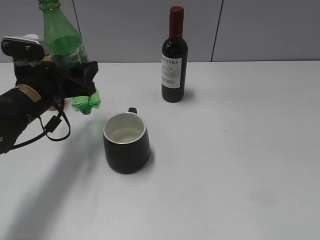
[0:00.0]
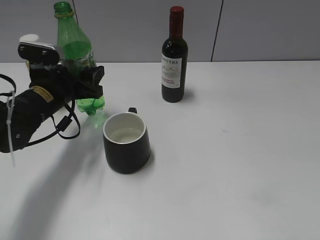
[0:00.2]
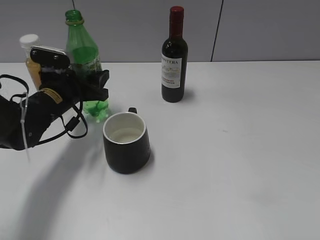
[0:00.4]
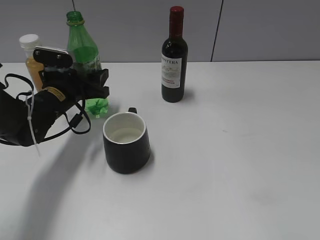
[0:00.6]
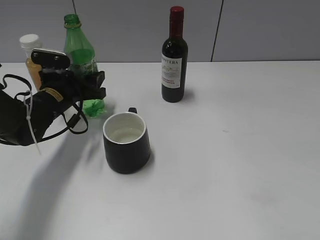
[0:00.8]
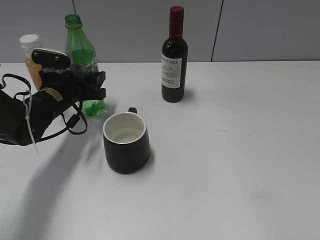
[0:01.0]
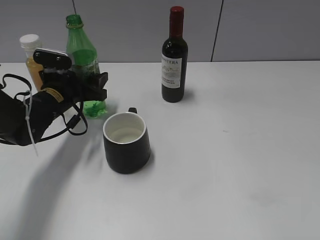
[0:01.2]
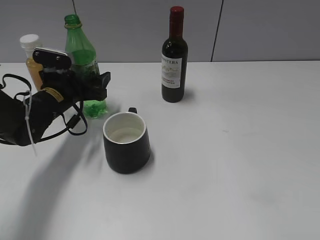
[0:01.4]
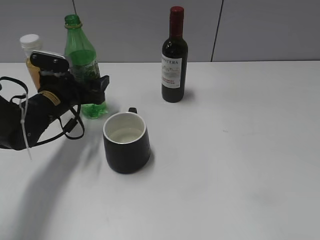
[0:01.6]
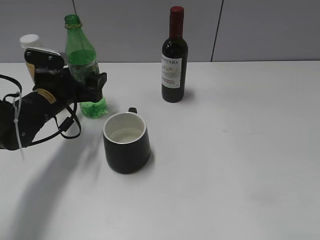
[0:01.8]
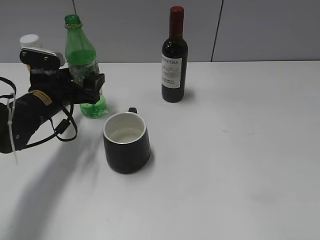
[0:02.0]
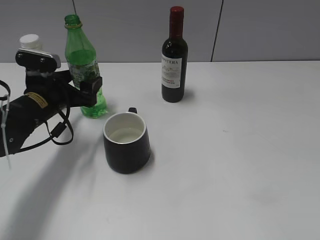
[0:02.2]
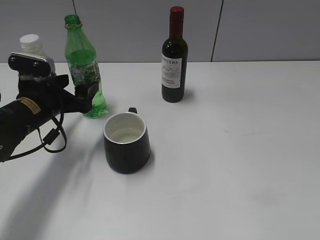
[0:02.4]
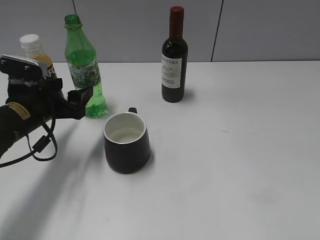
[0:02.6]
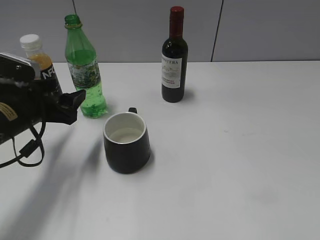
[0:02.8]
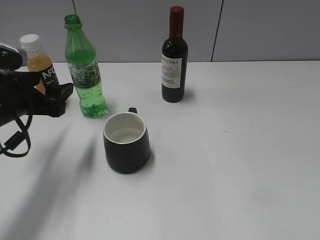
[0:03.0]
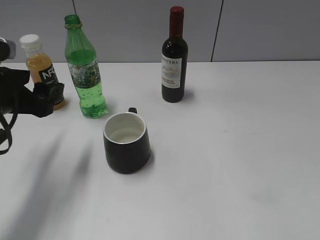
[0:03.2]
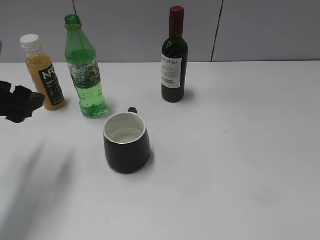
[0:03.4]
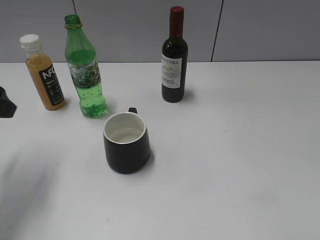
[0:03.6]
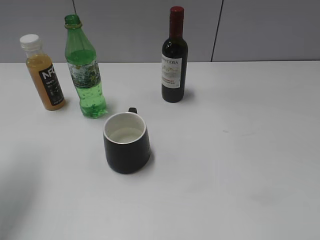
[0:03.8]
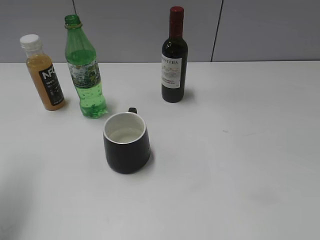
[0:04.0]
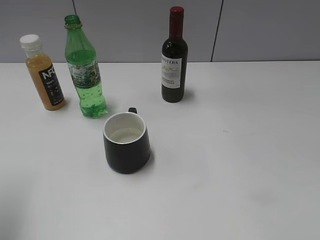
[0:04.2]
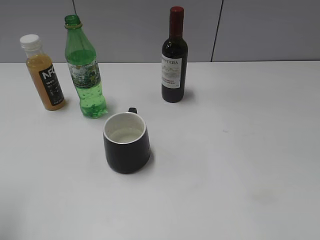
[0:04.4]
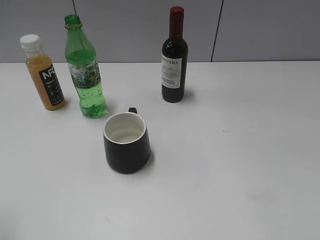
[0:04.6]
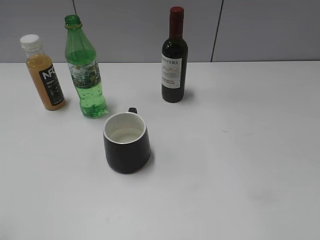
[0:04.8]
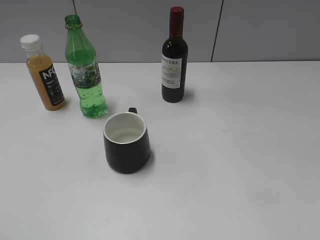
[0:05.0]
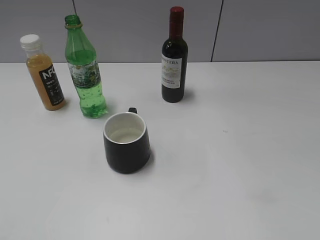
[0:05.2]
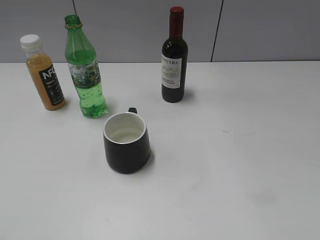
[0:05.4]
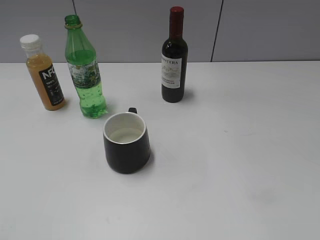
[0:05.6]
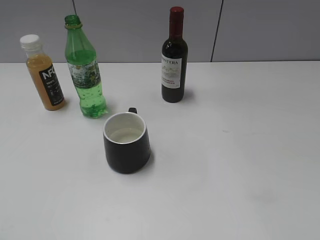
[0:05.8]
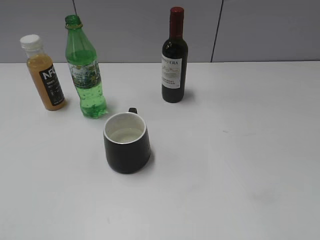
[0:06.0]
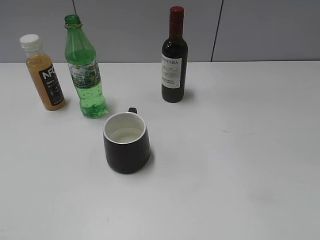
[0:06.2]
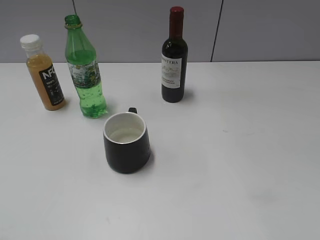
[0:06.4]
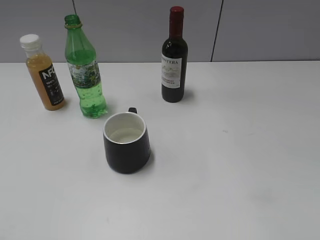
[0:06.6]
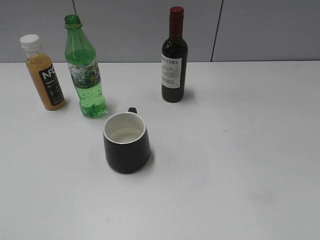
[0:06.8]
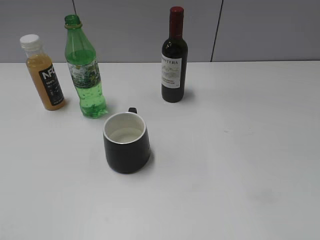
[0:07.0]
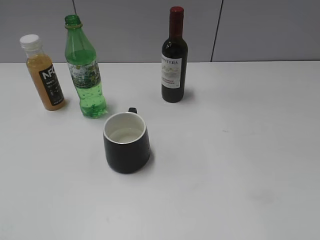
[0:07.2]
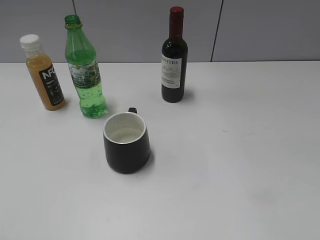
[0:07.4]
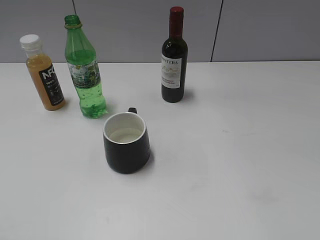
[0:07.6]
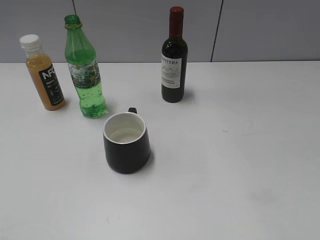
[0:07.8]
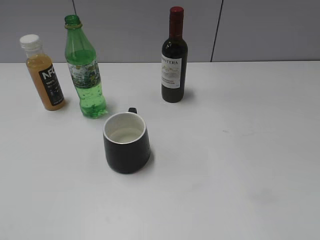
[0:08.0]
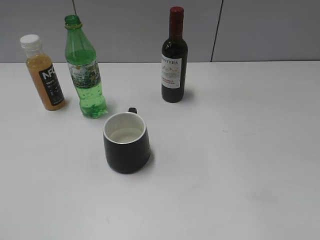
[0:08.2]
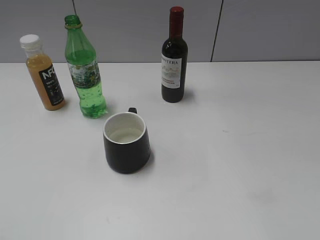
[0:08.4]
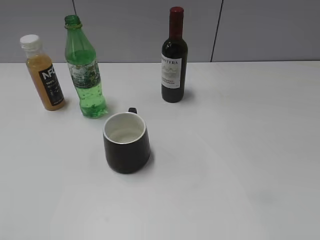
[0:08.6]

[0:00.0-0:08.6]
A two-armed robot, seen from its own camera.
Step, 0:00.0 to 0:02.2: Place the sprite bottle on the table with left gripper.
0:00.0 to 0:01.4: The left gripper goes some 10 cm forward and downward, and opens its fingers.
0:01.4 to 0:02.8: The left gripper goes roughly 10 cm backward.
0:02.8 to 0:04.4: The left gripper is displaced upward, backward and to the left by some 20 cm.
0:07.2 to 0:08.6: Both grippers stay put.

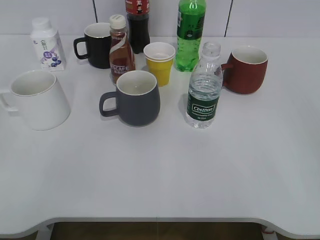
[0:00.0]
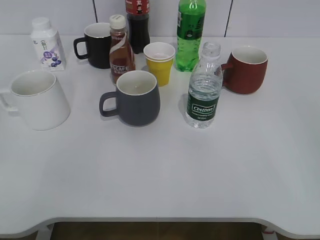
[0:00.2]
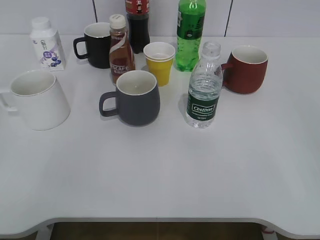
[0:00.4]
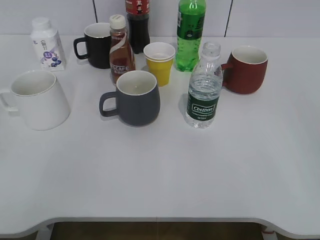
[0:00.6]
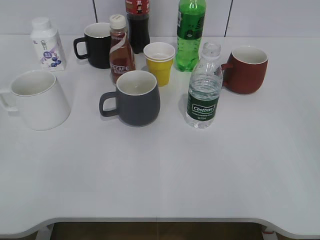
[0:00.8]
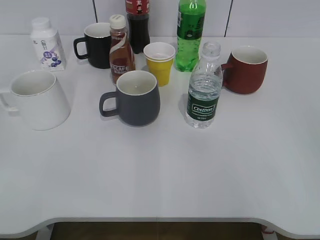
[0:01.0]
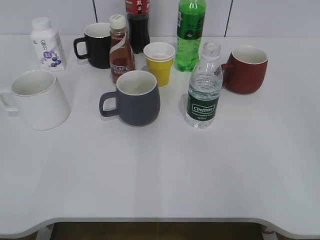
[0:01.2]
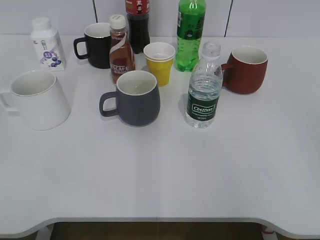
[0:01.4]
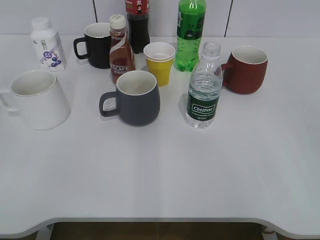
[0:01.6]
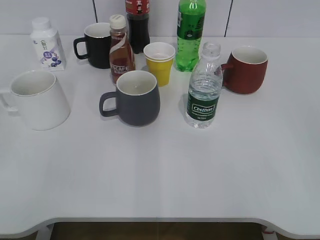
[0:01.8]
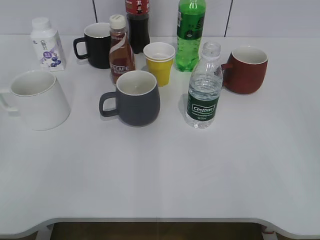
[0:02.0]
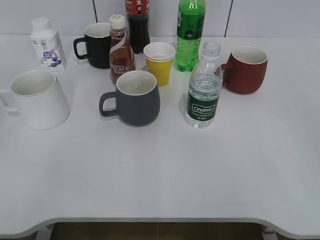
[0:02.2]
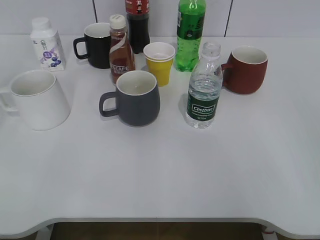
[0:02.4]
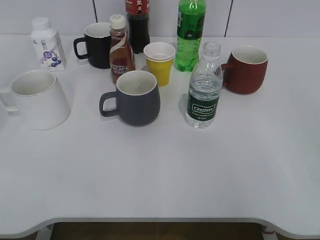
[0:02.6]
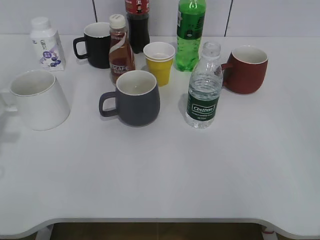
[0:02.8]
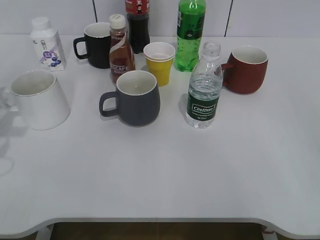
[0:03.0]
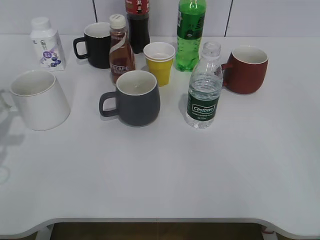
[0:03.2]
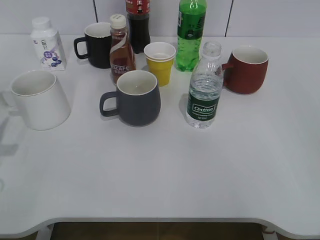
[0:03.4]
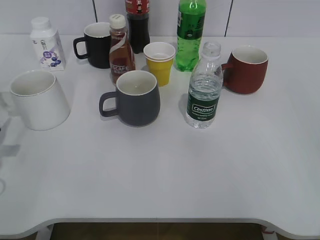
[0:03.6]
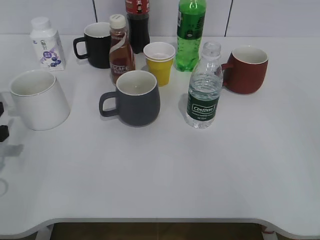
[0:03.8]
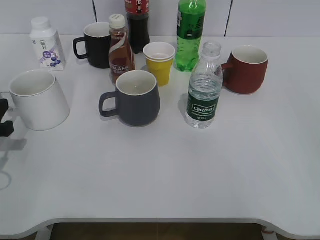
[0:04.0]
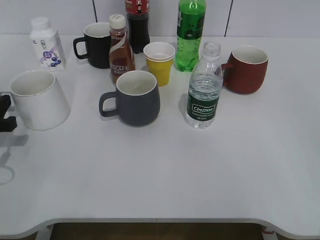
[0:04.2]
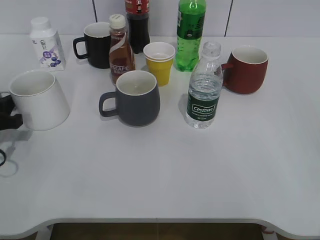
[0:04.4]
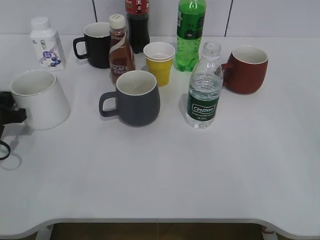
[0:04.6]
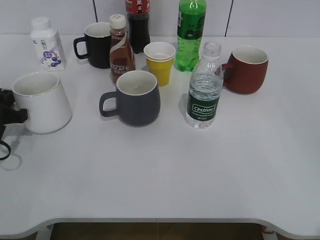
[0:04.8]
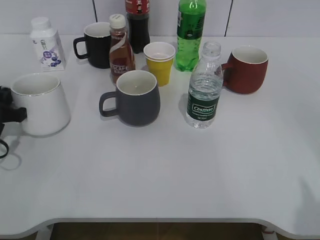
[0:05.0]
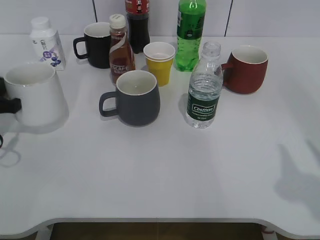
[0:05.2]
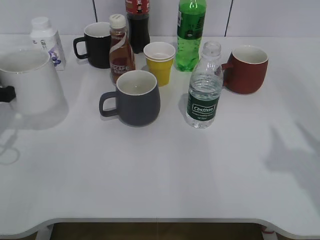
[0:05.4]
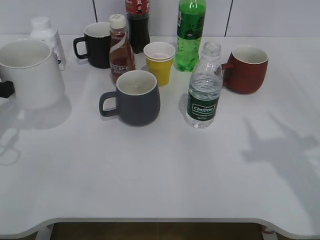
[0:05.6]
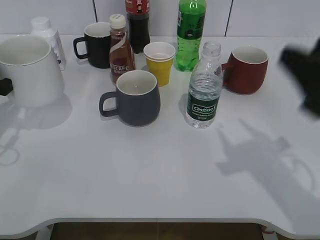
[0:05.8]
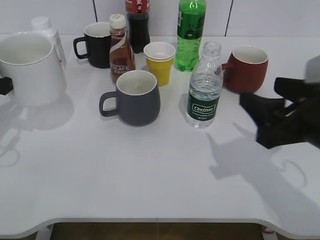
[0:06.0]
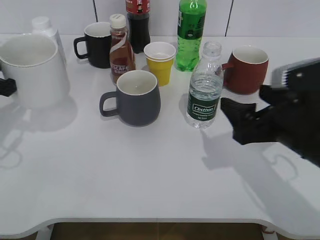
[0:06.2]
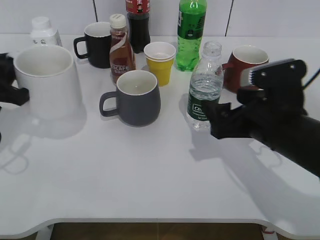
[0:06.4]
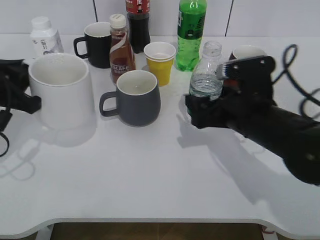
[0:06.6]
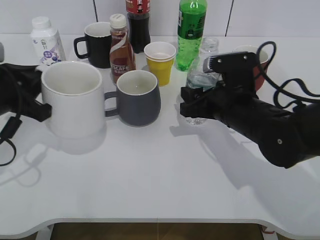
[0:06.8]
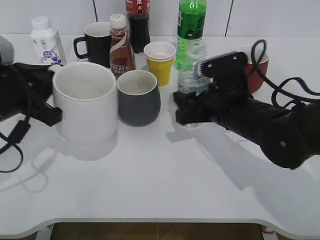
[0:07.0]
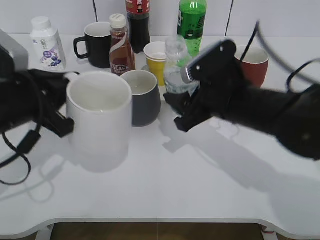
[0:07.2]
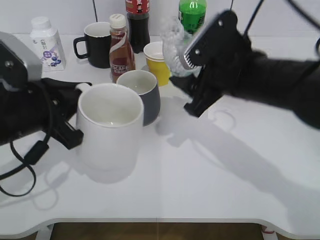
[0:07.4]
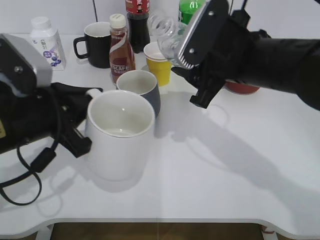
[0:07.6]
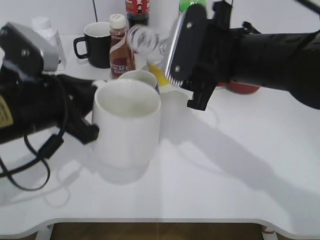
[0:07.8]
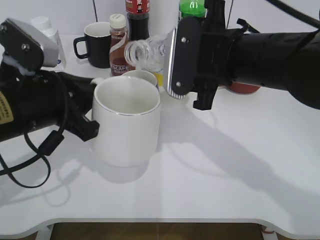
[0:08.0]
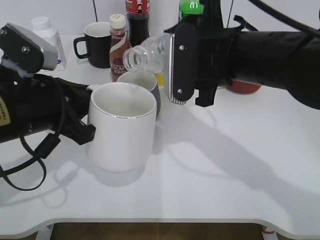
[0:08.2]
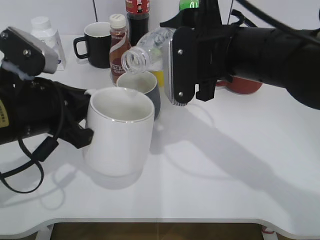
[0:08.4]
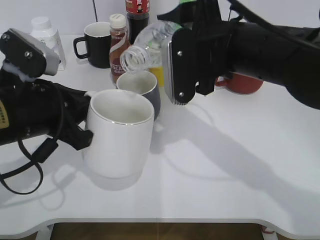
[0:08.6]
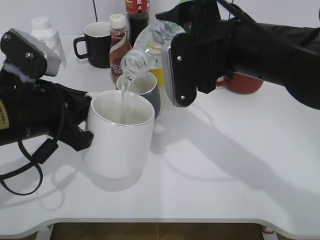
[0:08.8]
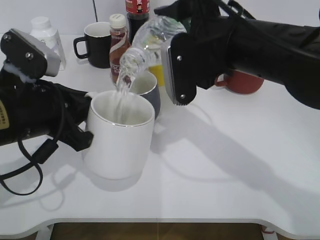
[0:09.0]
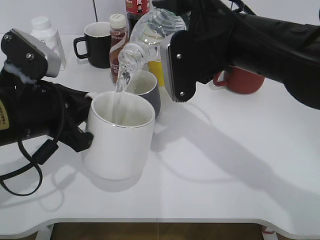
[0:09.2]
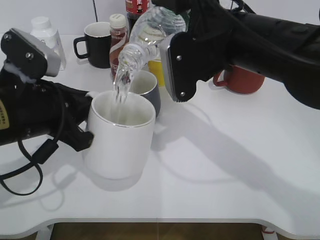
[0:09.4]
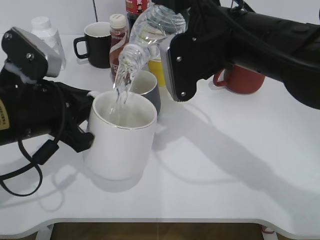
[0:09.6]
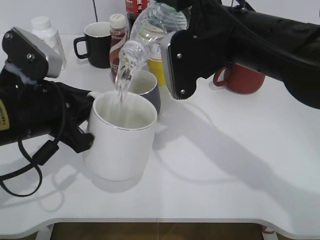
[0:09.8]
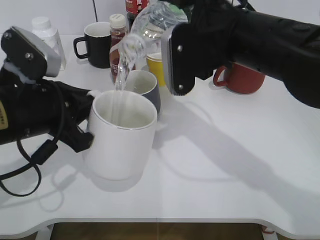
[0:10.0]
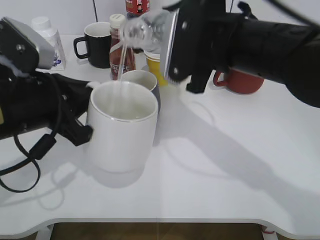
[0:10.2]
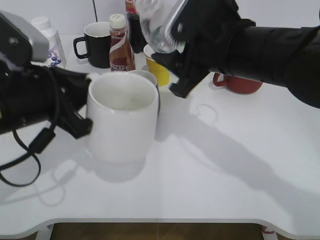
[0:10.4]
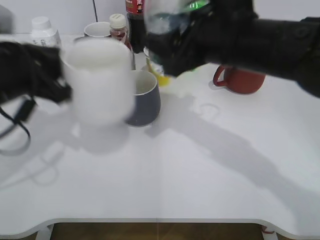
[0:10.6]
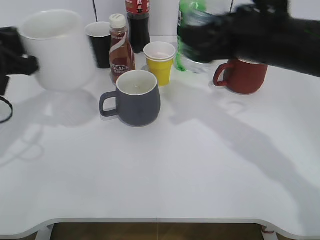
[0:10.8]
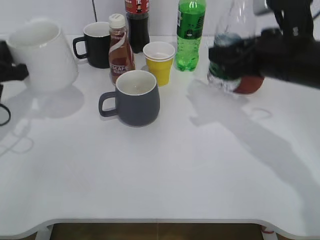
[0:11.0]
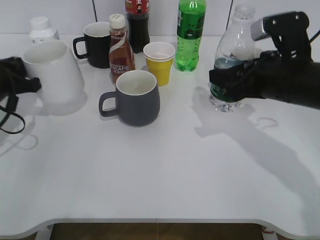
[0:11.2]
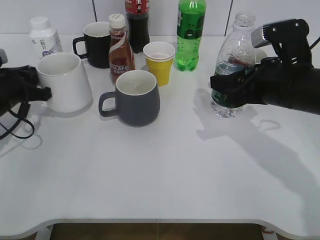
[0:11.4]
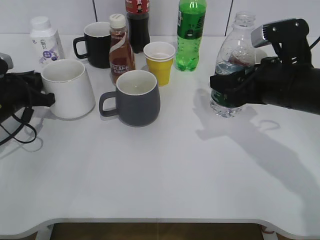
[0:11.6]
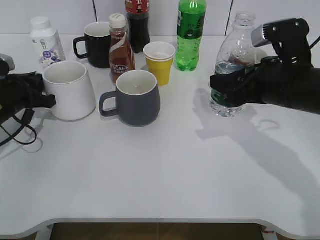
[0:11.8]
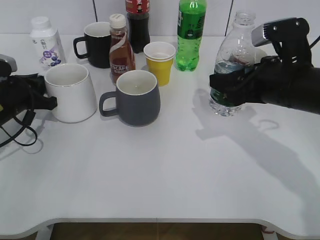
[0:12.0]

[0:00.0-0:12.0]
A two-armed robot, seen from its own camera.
Step, 0:04.8 to 0:06.6: Grasp the bottle with water with right gripper.
Step, 0:06.8 to 0:10.2: Pour the water from bottle to cup with right gripper.
Step, 0:10.4 to 0:10.8: Place the white cup on the table with left gripper.
0:01.6 to 0:03.0: The left gripper goes some 20 cm forward.
0:03.0 to 0:04.4: The left gripper heads downward, covering roughly 10 cm.
0:04.4 to 0:06.0: The right gripper goes some 20 cm forward and to the left; the left gripper travels upward by some 10 cm, and closes its fingers.
0:06.0 to 0:07.6: The right gripper travels forward and to the left by approximately 15 cm, and opens and closes again. Meanwhile the left gripper goes approximately 15 cm to the right and backward.
0:10.4 to 0:12.0: The left gripper is displaced forward, to the left and downward by approximately 20 cm. The right gripper shifts some 10 cm to the right and downward.

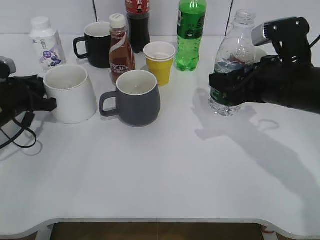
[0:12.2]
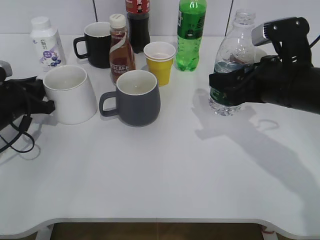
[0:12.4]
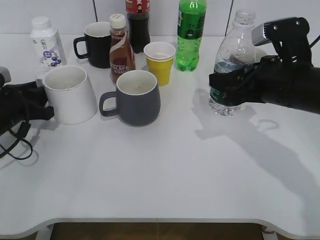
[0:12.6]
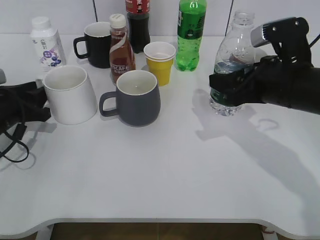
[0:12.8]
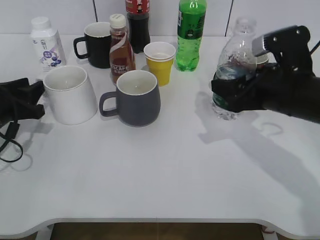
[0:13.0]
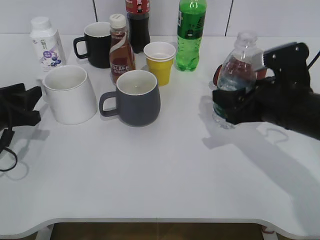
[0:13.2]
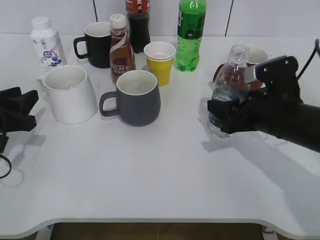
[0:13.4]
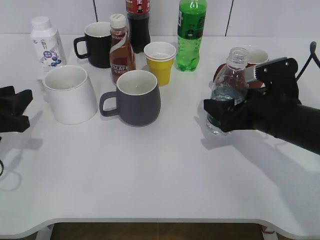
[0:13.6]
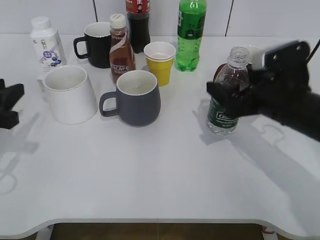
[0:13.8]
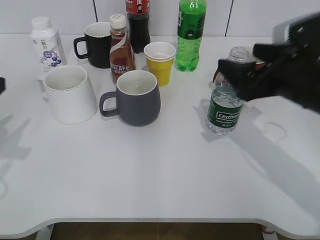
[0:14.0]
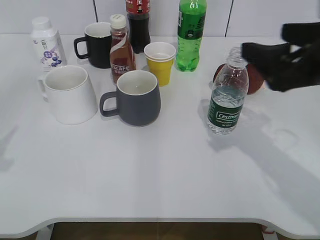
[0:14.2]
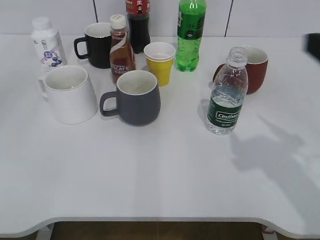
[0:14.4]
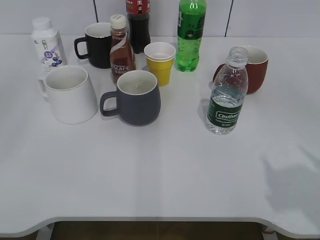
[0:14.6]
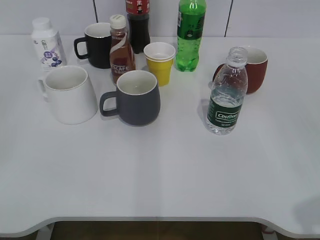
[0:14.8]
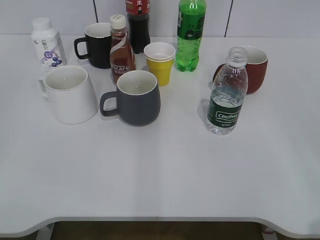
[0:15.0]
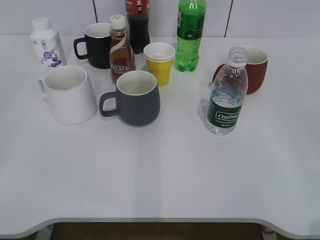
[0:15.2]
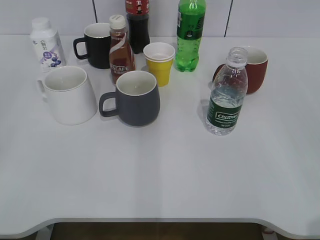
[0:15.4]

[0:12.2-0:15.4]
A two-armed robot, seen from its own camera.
Step, 0:12.2 to 0:13.8: Place the water bottle on the table with right gripper.
0:12.2 to 0:13.8: The right gripper opens its fingers, while the left gripper shifts roughly 10 cm backward, and opens its fingers.
0:13.8 to 0:15.4: The left gripper goes roughly 25 cm backward and upward, and opens; the right gripper shifts about 30 cm backward, upward and to the right.
